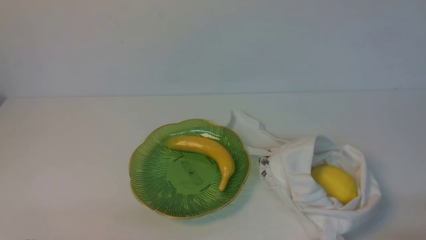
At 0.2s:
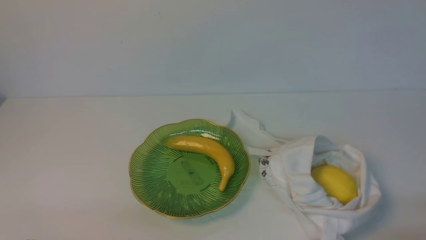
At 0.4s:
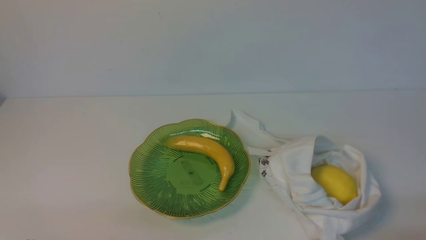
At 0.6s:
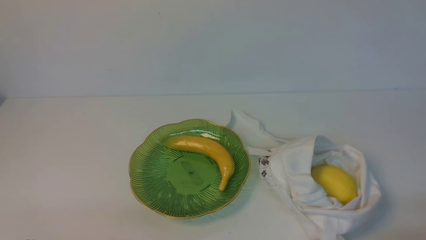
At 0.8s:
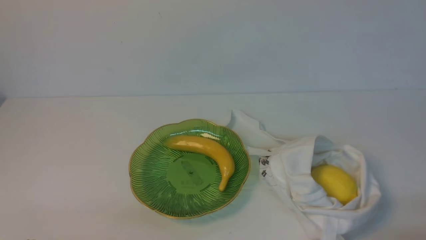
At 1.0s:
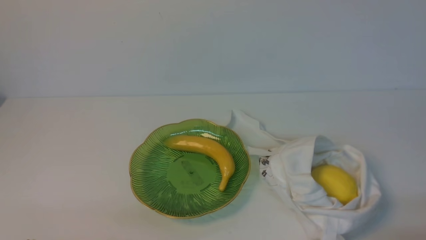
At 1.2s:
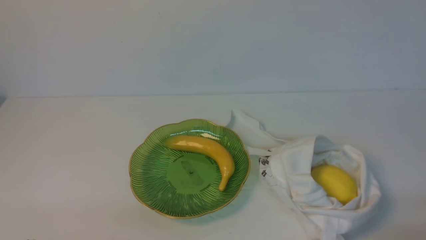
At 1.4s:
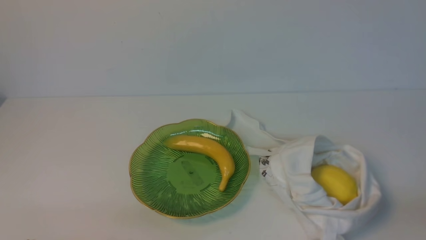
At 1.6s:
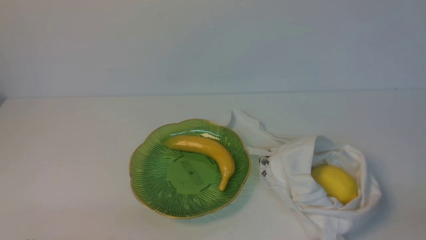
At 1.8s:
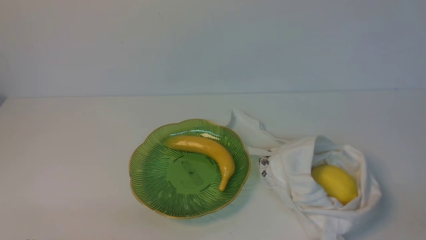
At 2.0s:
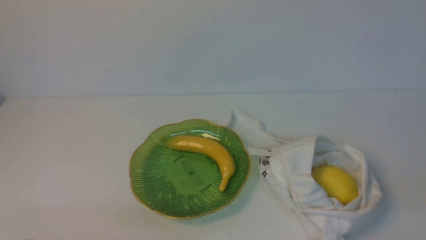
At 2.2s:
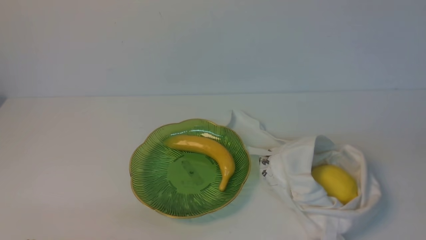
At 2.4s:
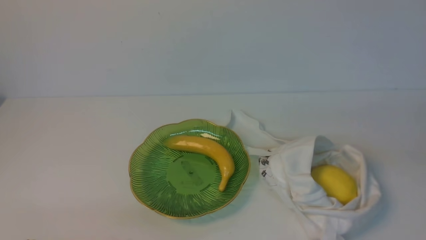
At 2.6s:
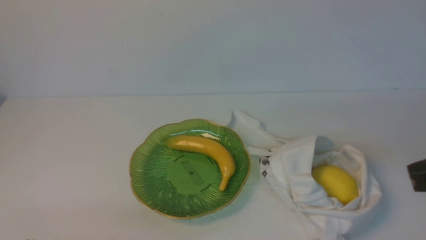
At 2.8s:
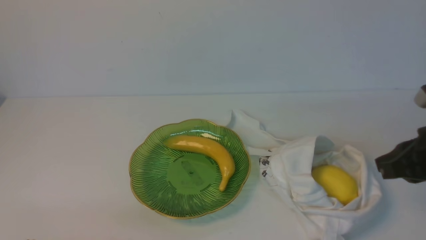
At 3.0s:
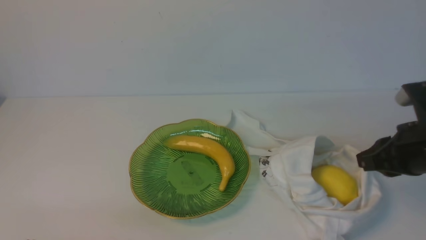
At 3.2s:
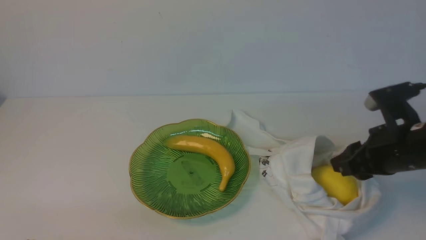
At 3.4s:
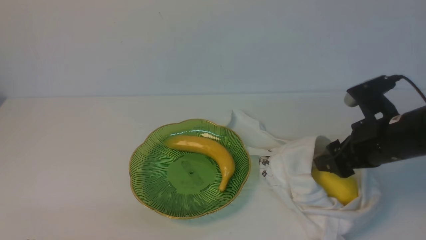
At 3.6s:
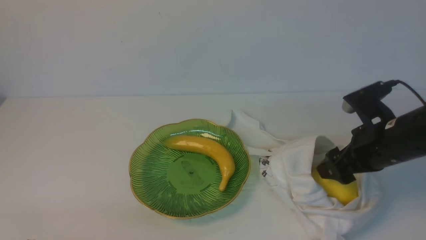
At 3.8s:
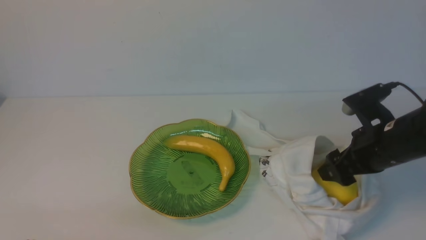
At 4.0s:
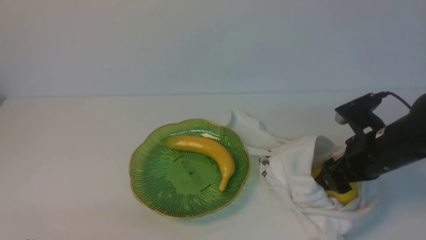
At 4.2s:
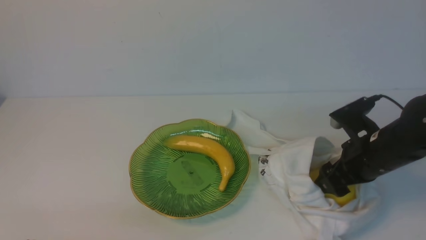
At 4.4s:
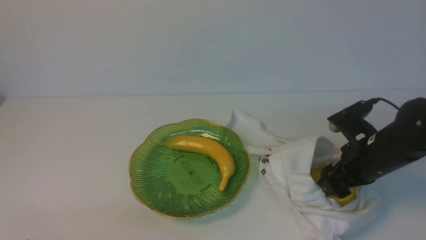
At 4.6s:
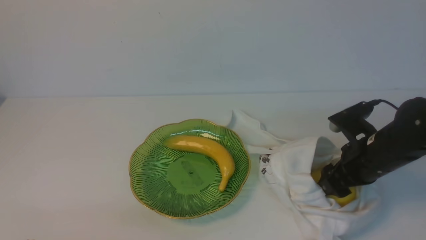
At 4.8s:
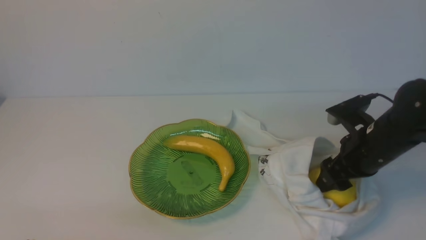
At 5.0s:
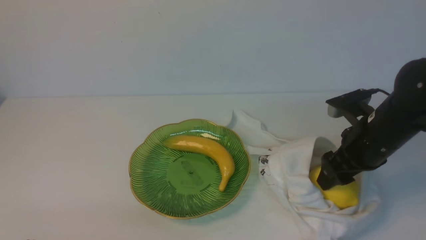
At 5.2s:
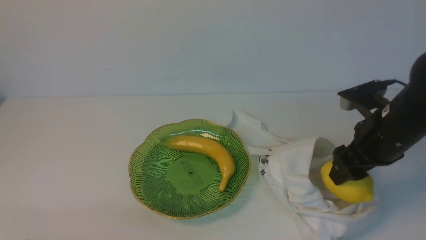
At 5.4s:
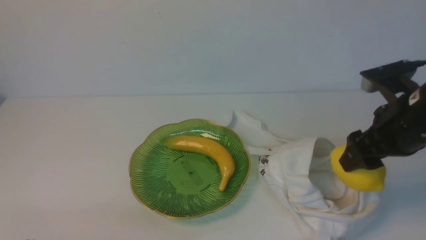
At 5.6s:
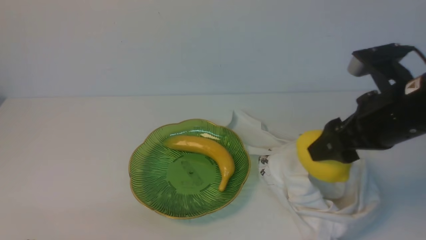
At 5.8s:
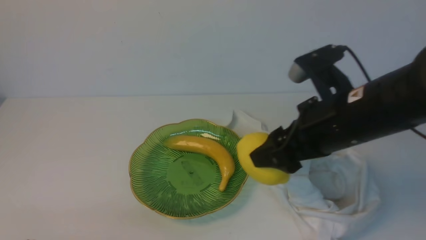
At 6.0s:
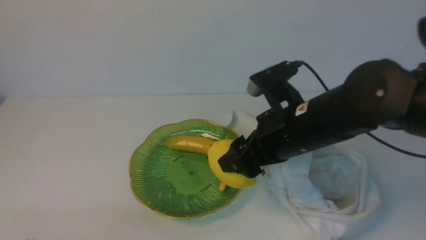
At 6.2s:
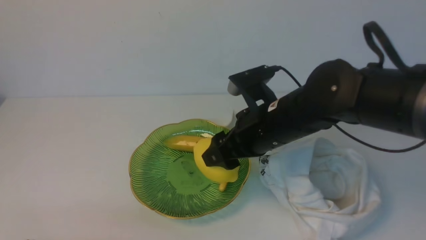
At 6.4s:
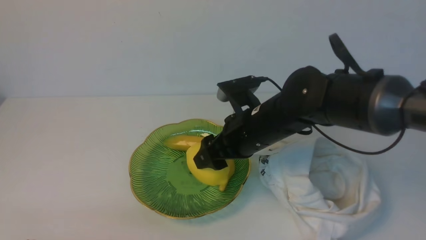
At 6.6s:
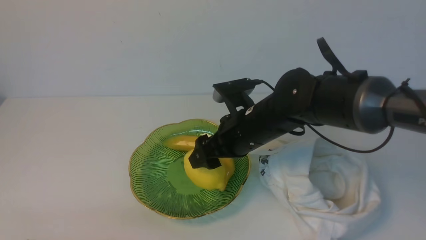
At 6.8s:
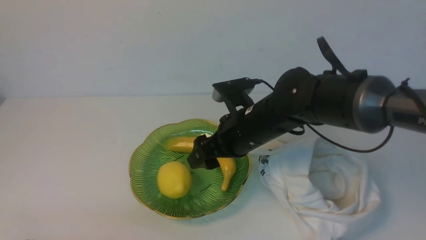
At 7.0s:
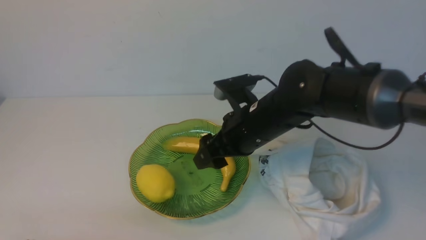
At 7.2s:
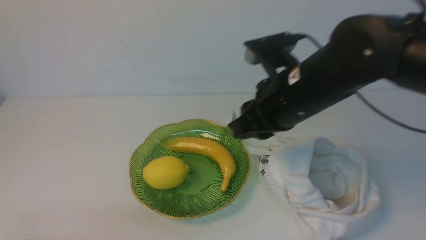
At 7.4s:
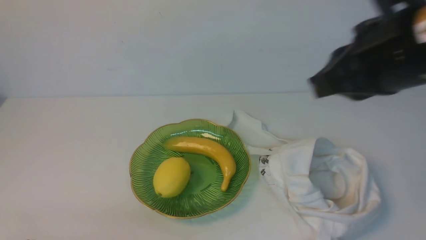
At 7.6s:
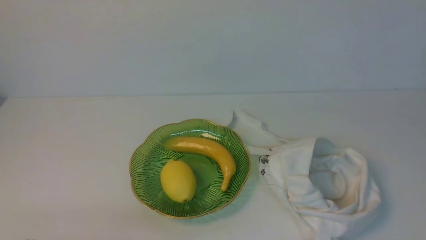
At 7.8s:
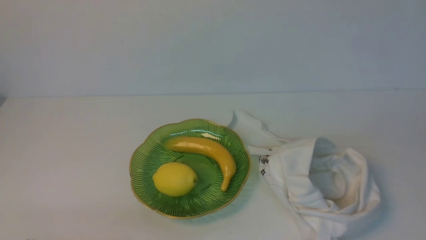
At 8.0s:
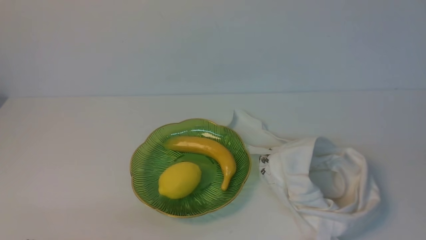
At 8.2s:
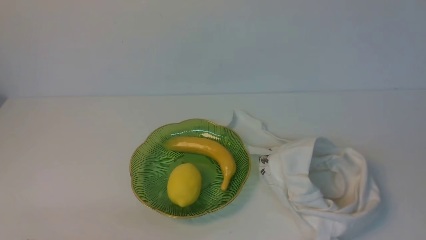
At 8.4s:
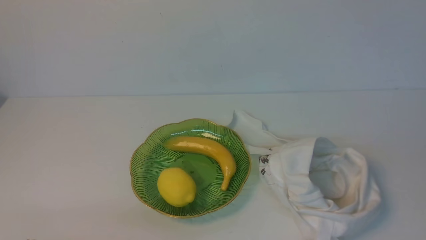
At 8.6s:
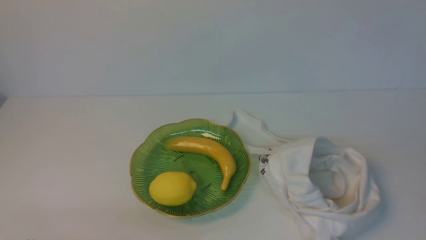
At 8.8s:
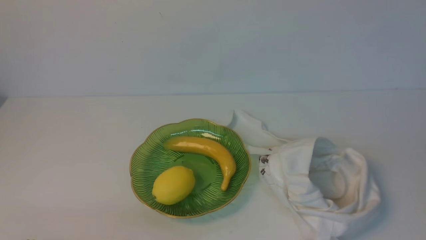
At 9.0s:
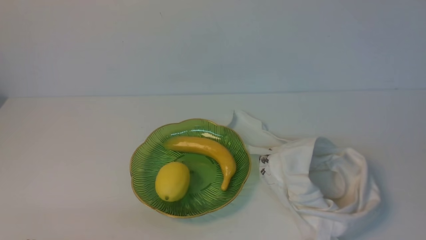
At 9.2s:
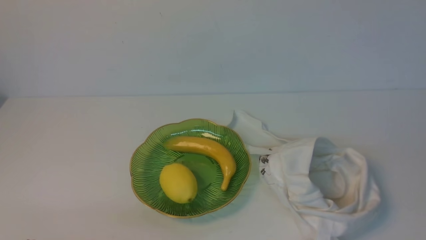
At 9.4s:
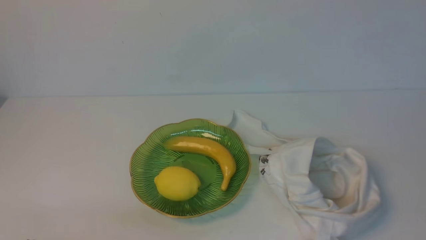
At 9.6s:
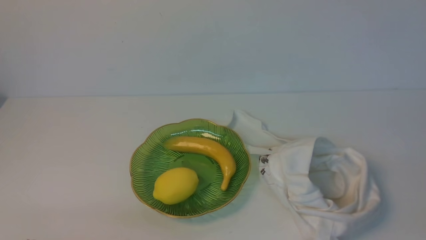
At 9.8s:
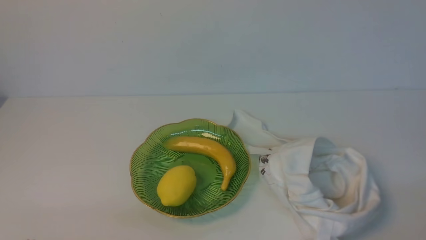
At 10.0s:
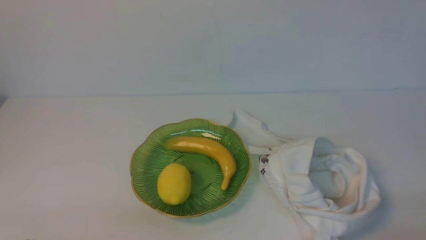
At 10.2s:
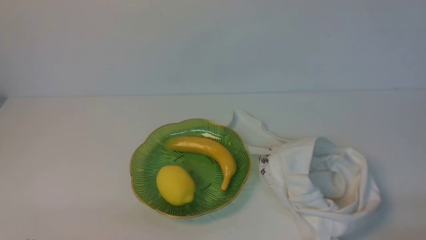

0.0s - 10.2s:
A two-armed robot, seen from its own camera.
Step, 0.0s - 4.8s: use the right arm to grab a lemon from the bag.
Step, 5.0s - 6.8s: use the right arm to put the lemon into the empty plate on the left.
1.4s - 3.0s: The right gripper moves forward, approximately 20 cm.
3.0s - 4.4s: The right gripper moves downward, approximately 5 cm, and opens its fingers.
4.4s - 5.8s: The right gripper moves upward and to the left, about 15 cm.
5.8s - 7.2s: The right gripper closes.
7.2s - 8.8s: The right gripper moves backward and to the right, approximately 35 cm.

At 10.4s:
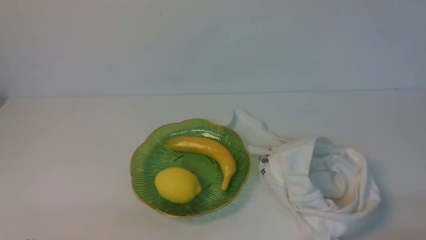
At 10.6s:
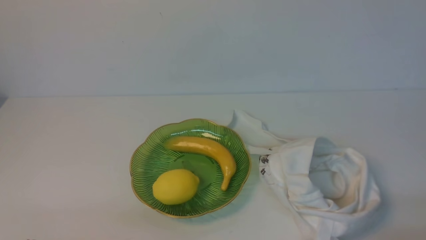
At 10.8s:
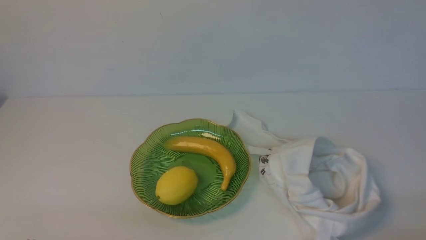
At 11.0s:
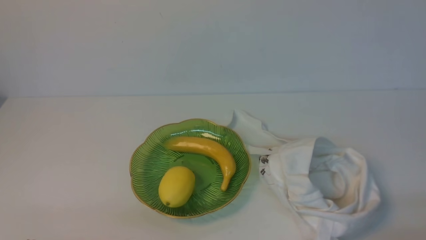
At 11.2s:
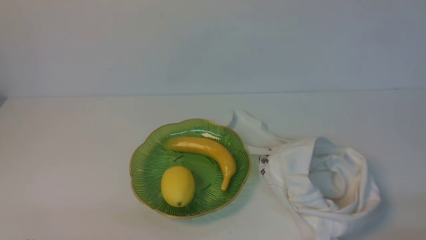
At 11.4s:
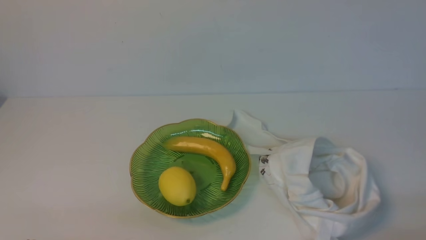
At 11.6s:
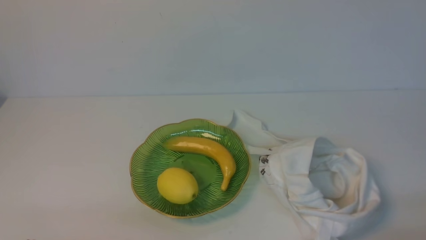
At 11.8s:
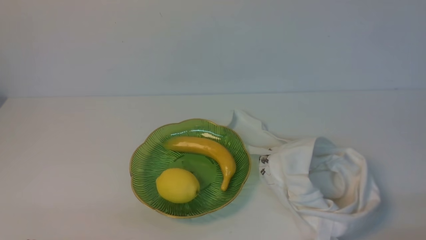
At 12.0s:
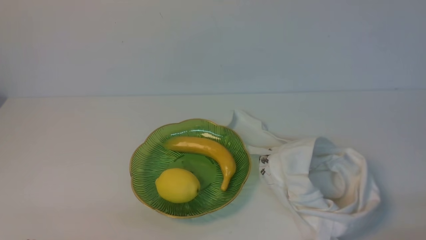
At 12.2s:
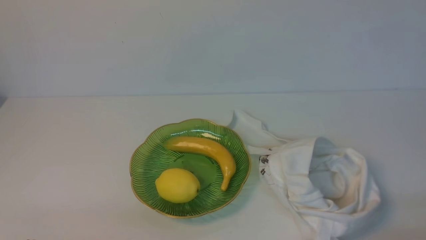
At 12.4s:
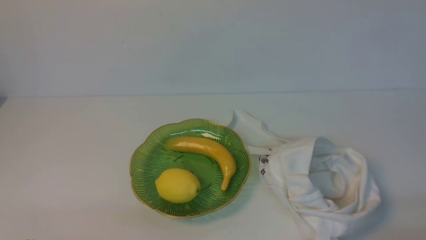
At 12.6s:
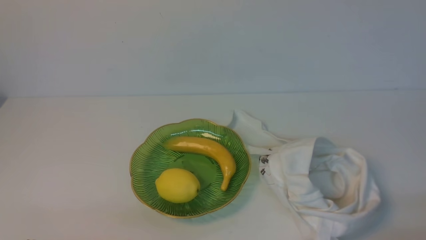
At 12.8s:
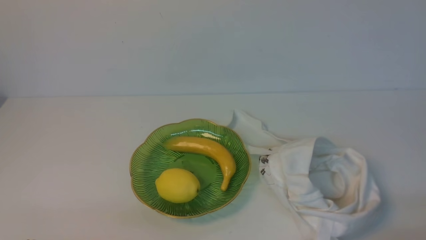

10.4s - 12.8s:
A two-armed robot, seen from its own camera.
10.4s - 12.8s: Both grippers stay about where they are.
